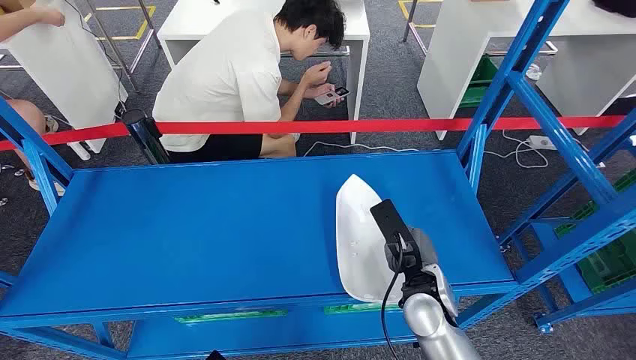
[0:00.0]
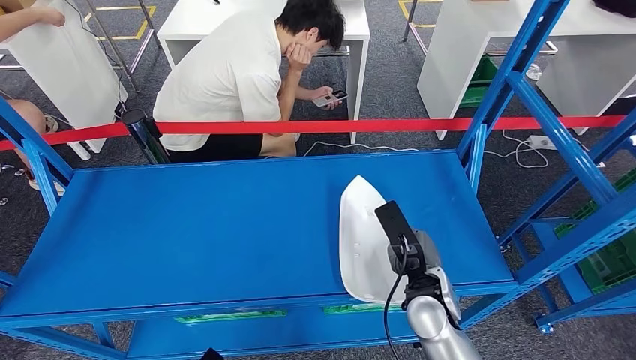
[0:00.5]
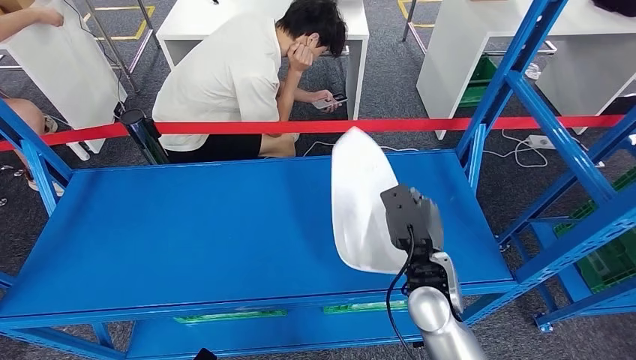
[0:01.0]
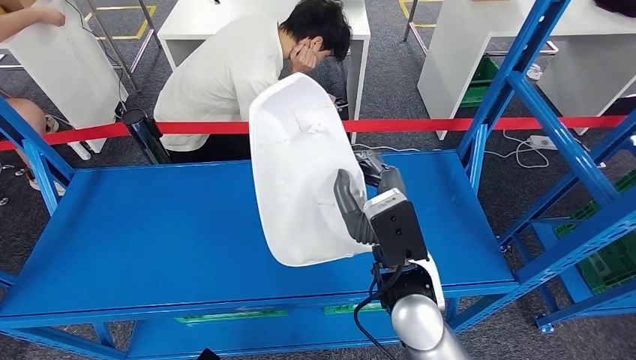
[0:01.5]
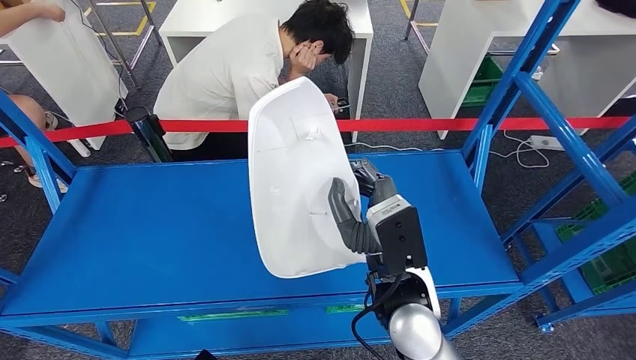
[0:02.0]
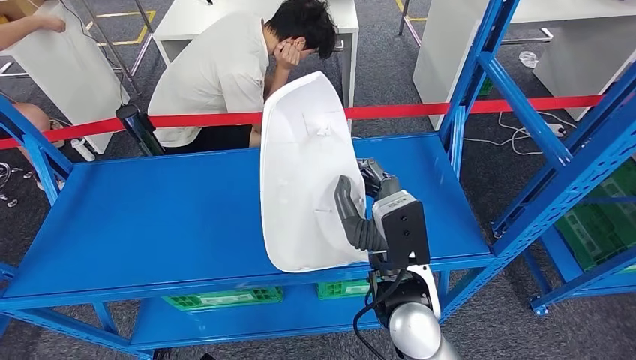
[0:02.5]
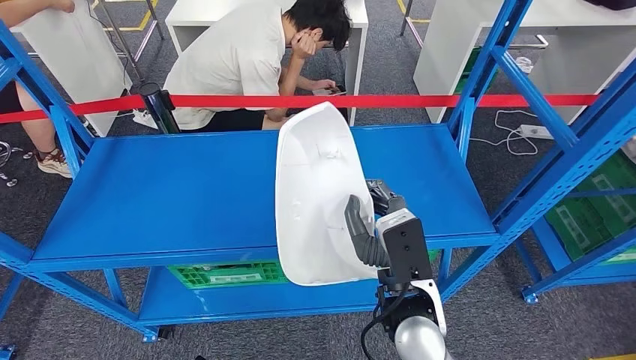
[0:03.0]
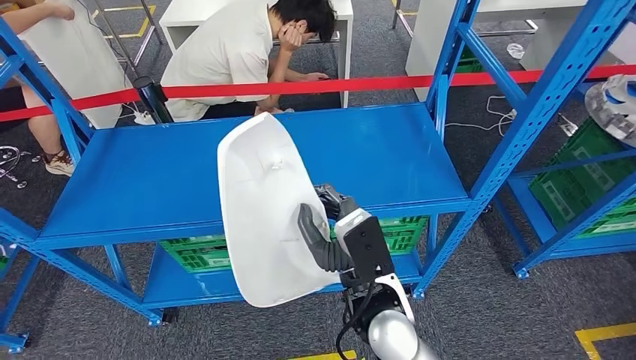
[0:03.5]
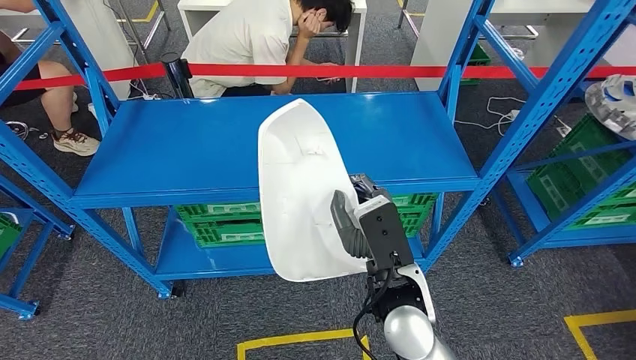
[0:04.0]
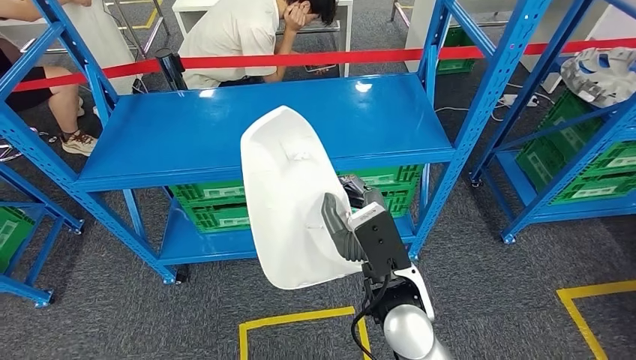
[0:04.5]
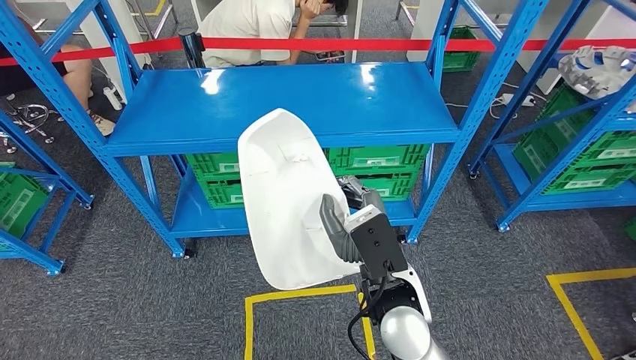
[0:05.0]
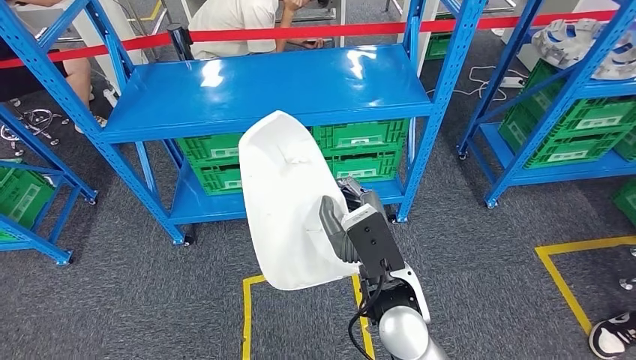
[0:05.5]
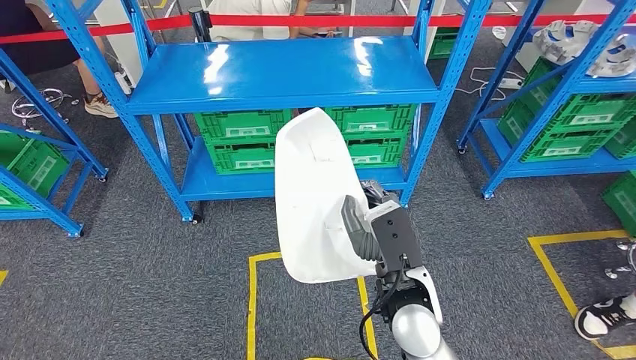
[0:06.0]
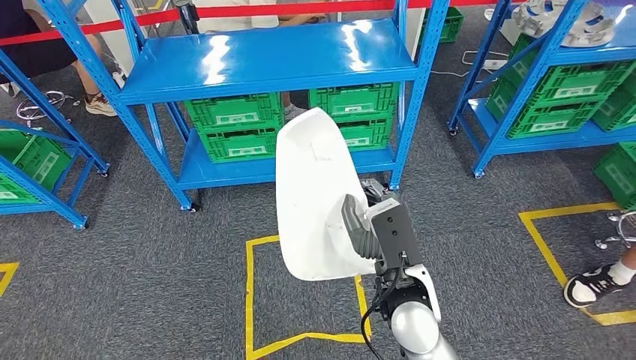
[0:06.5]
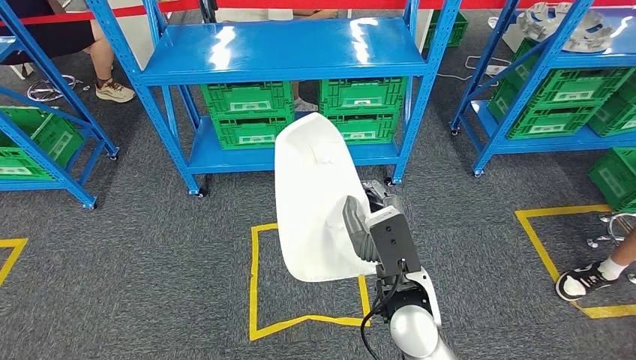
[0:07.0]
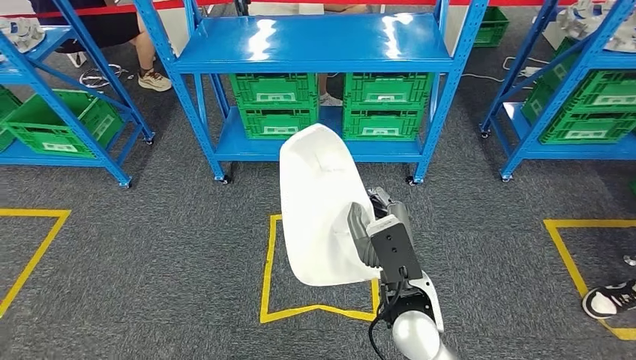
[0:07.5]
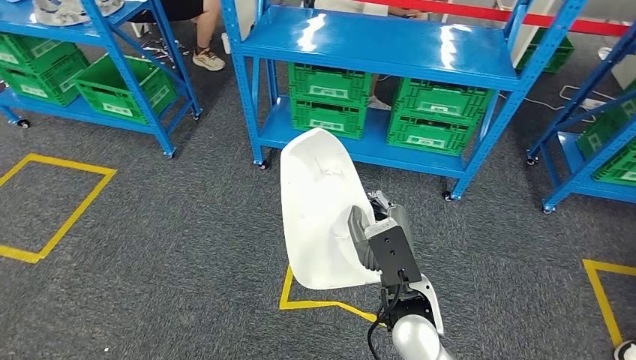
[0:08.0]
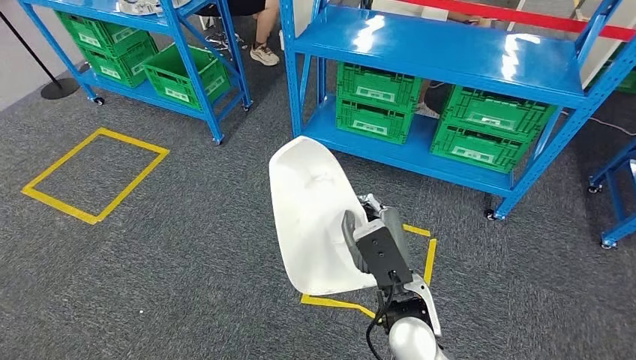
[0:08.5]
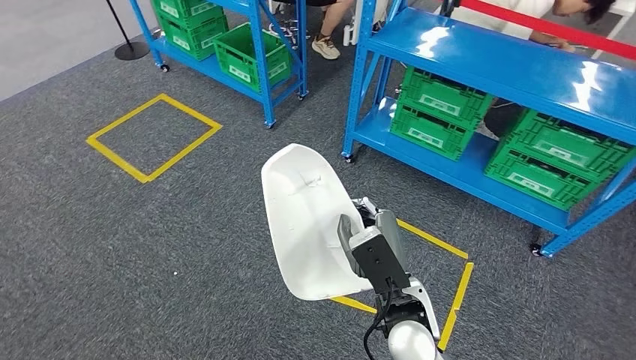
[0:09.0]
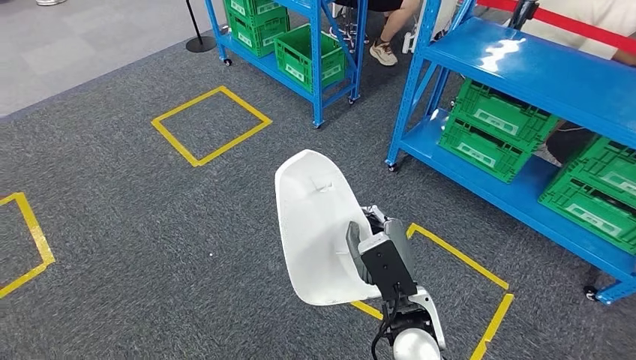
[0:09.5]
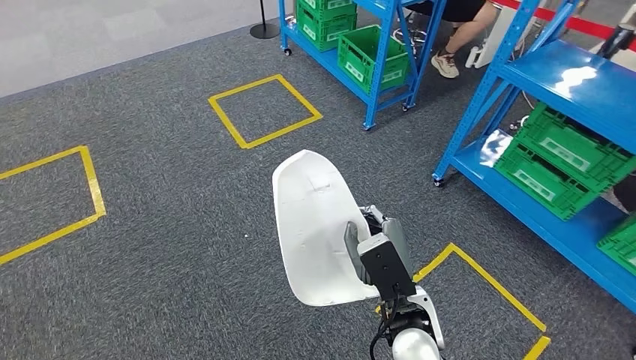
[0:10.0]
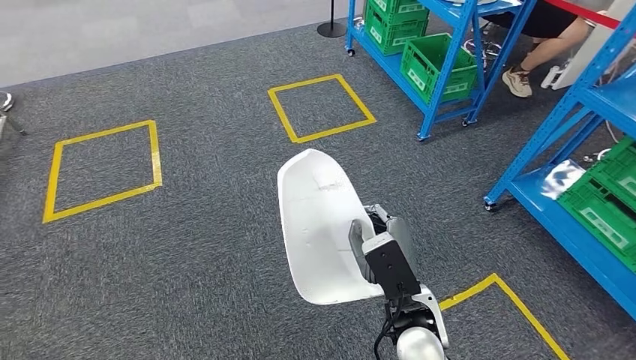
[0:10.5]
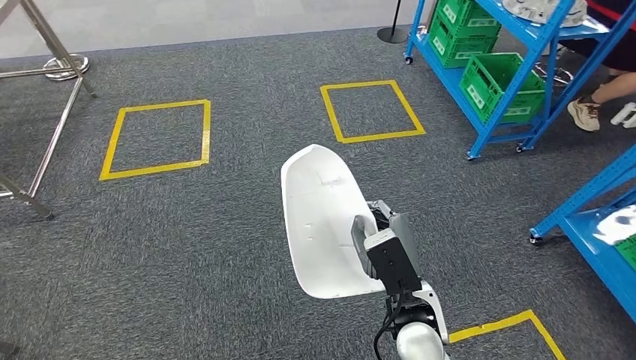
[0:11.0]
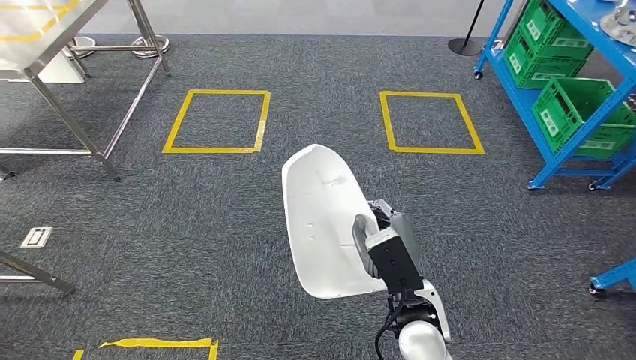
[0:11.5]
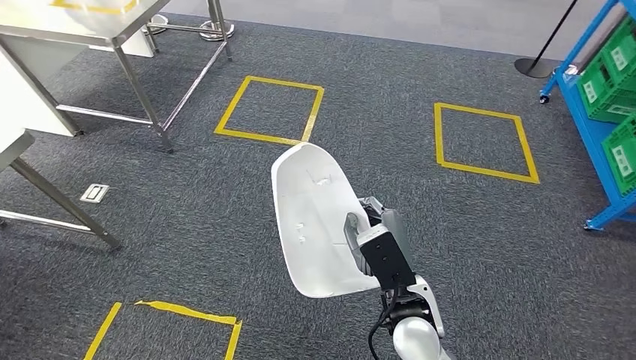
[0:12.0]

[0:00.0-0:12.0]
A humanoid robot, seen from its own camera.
Step, 0:00.0 to 0:01.5: Pick up the small component from the shelf.
Step, 0:02.0 to 0:09.5: Move the small component to the workbench.

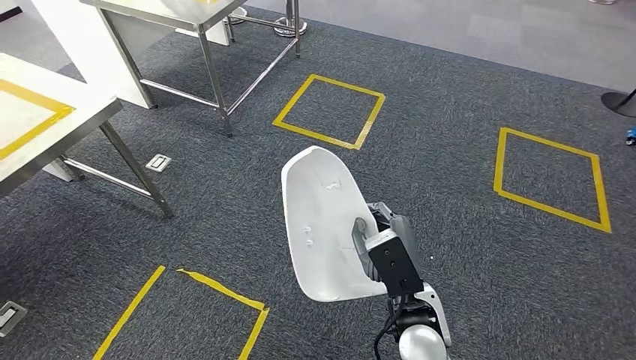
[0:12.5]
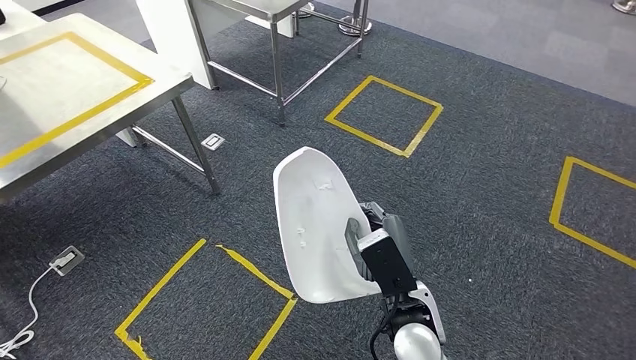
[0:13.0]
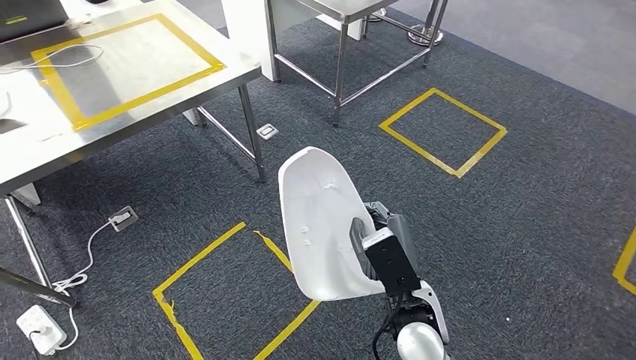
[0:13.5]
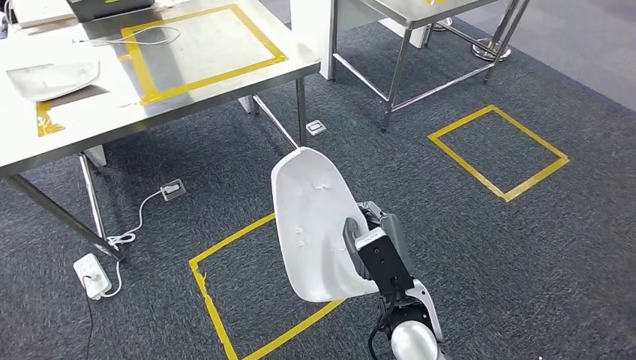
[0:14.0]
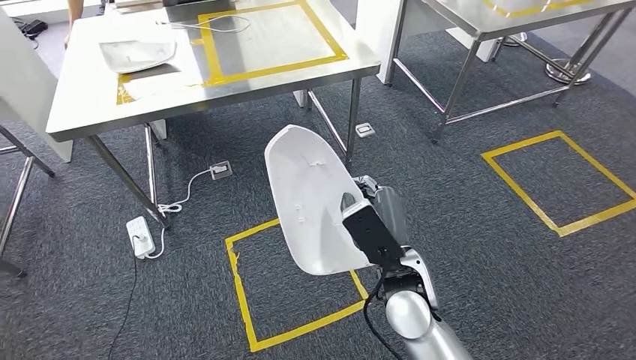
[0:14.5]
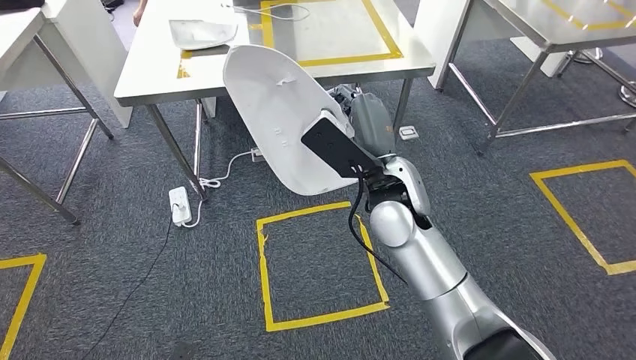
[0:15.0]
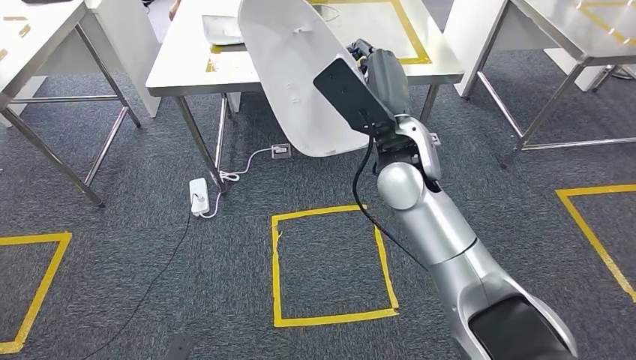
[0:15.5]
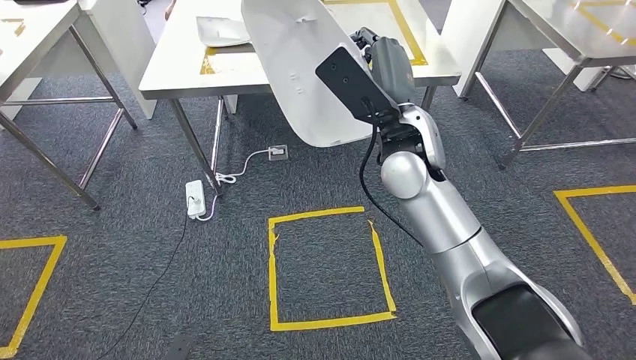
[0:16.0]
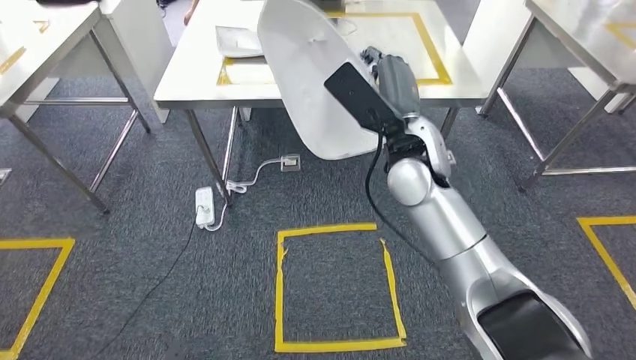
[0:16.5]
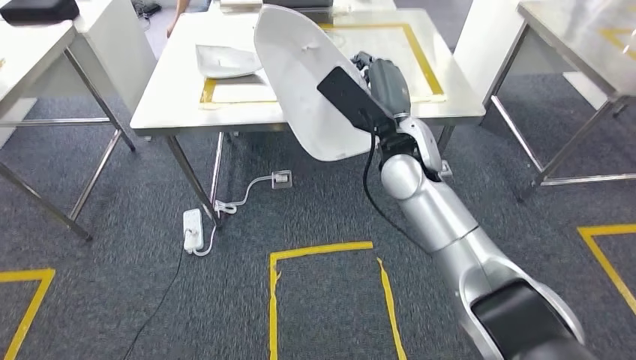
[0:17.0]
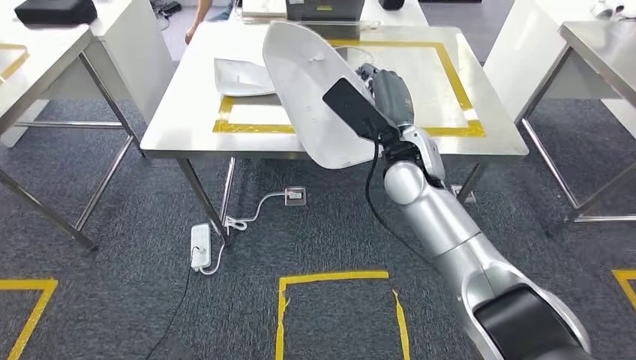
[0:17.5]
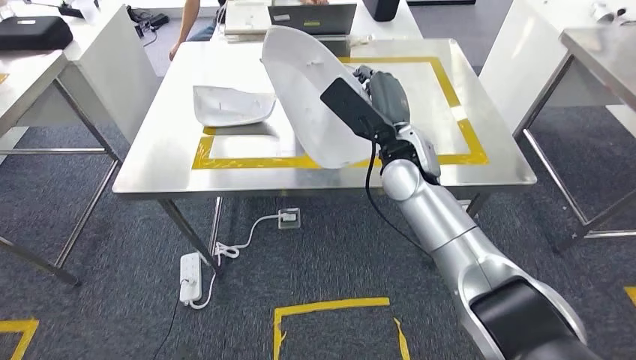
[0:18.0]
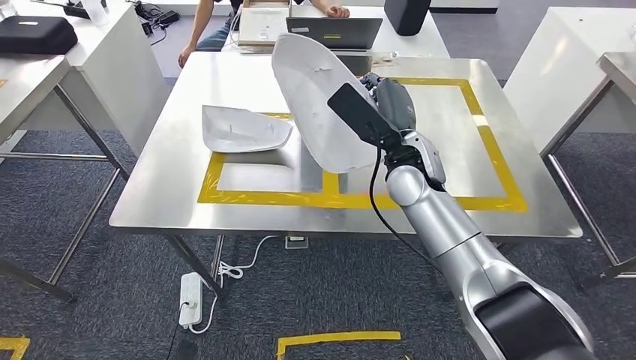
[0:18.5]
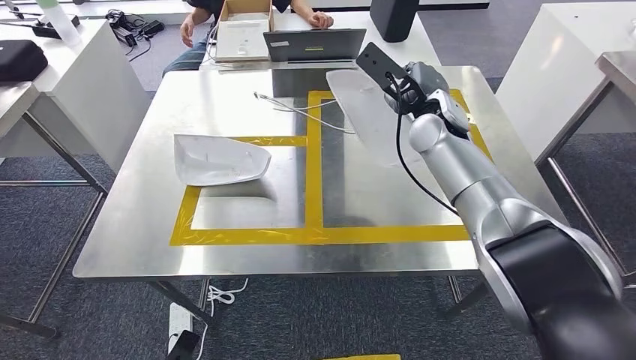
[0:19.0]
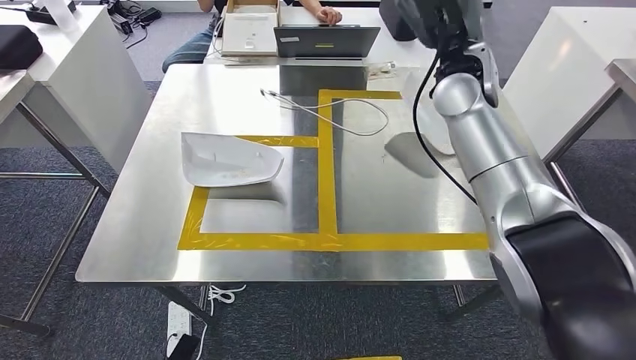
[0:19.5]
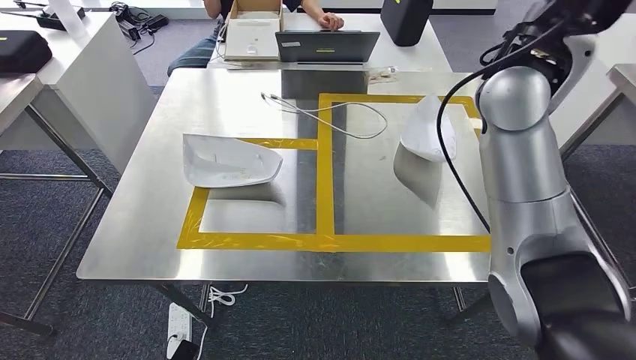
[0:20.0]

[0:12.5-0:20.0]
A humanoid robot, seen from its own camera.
Step, 0:12.5 to 0:18.5: Insert the small component into the corresponding slot on the workbench.
Step, 0:19.5 to 0:20.0: Move to the initial position at the workbench.
